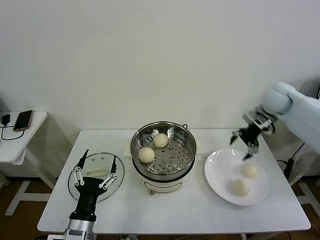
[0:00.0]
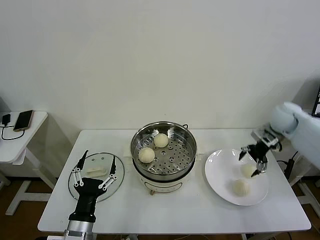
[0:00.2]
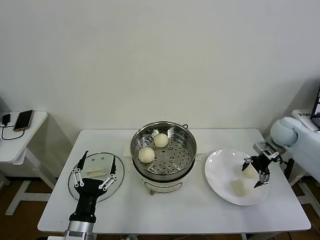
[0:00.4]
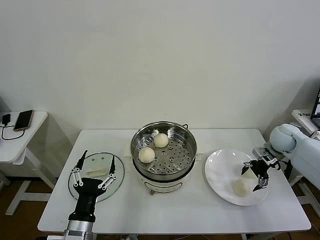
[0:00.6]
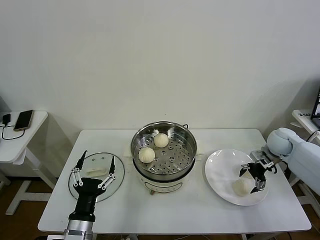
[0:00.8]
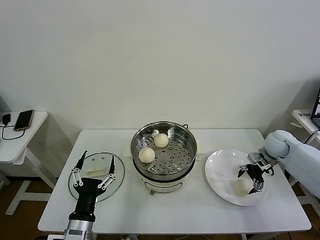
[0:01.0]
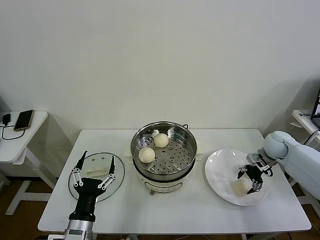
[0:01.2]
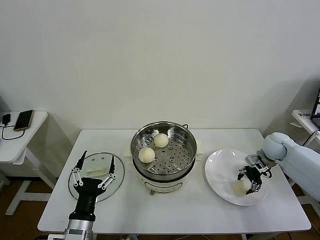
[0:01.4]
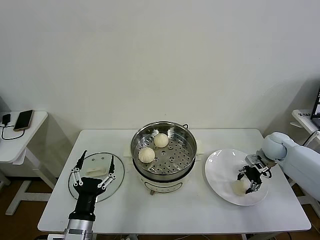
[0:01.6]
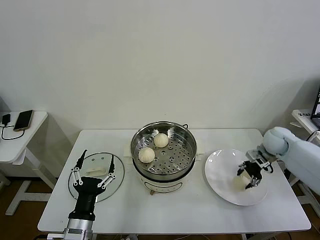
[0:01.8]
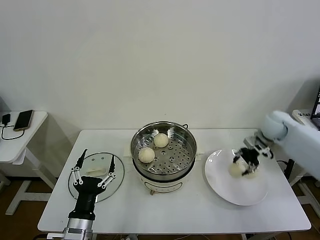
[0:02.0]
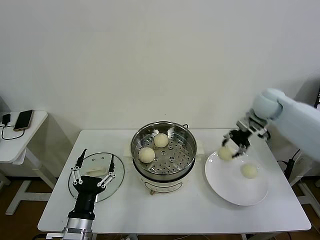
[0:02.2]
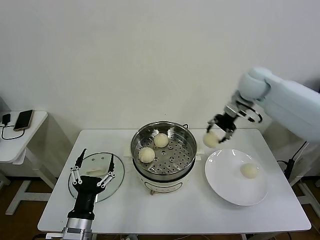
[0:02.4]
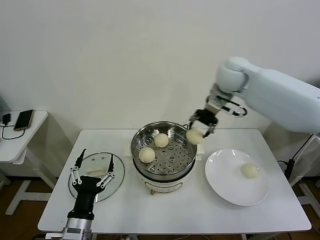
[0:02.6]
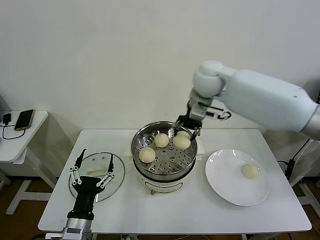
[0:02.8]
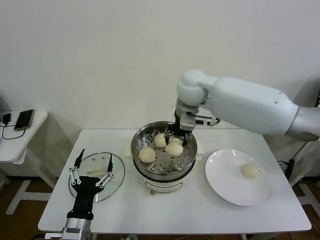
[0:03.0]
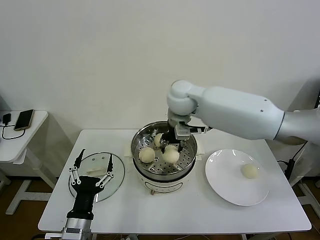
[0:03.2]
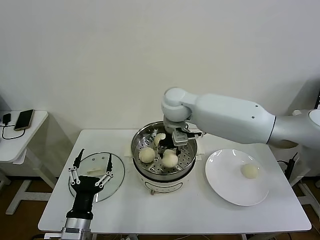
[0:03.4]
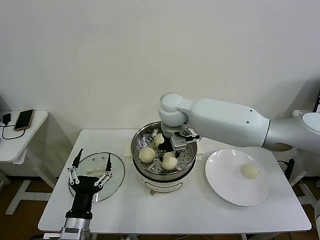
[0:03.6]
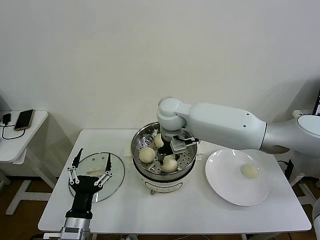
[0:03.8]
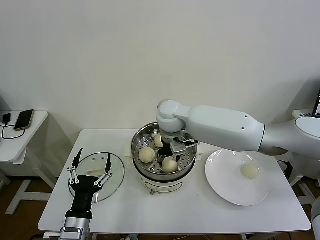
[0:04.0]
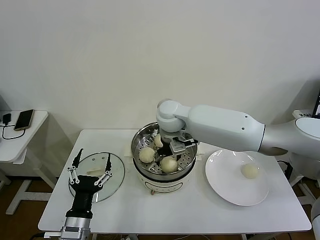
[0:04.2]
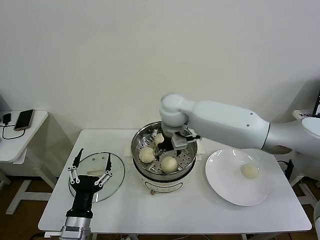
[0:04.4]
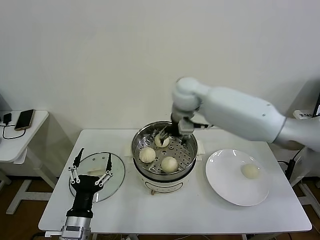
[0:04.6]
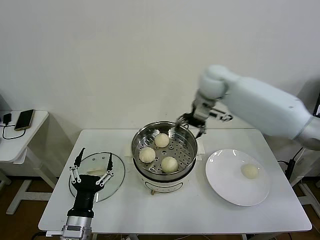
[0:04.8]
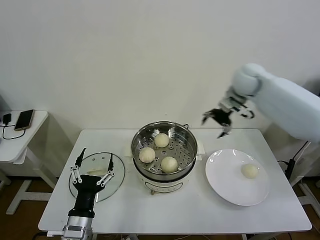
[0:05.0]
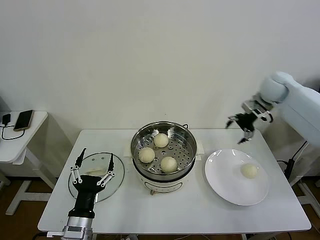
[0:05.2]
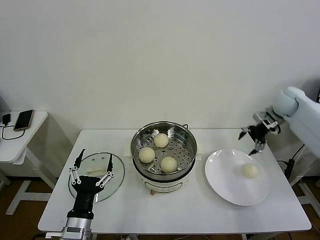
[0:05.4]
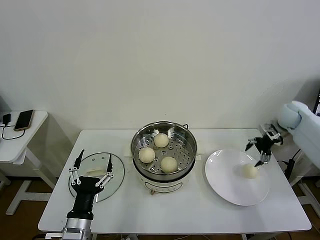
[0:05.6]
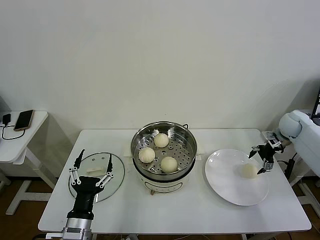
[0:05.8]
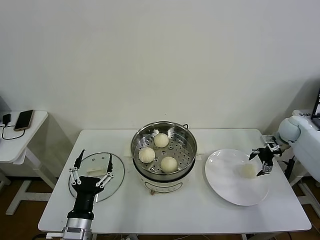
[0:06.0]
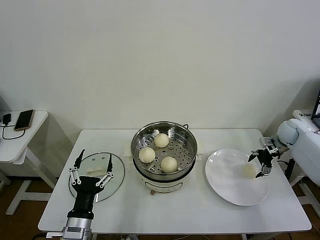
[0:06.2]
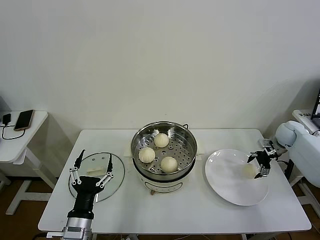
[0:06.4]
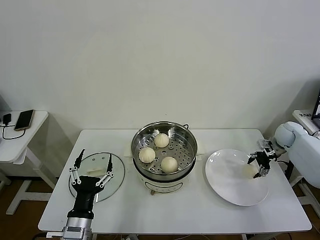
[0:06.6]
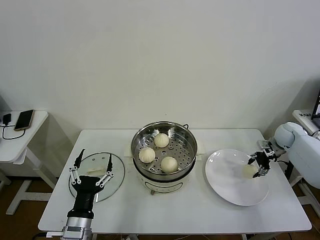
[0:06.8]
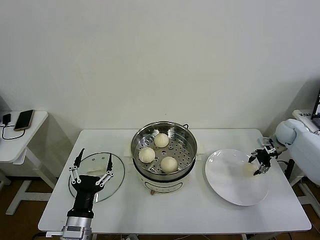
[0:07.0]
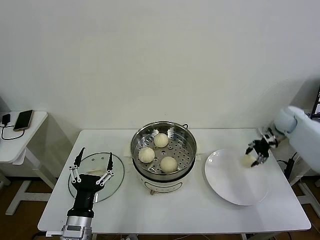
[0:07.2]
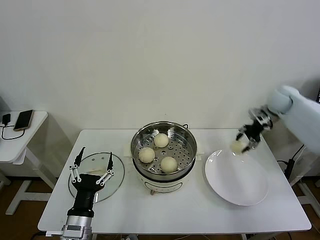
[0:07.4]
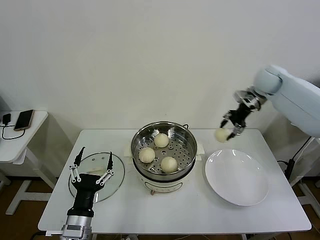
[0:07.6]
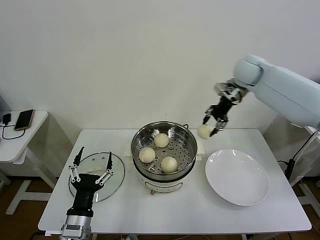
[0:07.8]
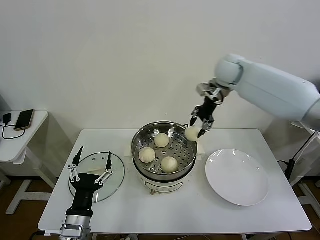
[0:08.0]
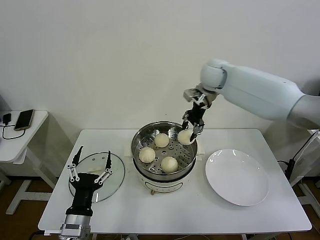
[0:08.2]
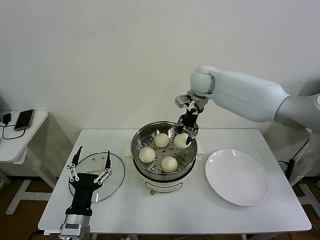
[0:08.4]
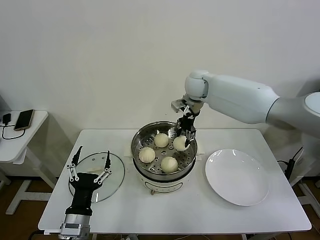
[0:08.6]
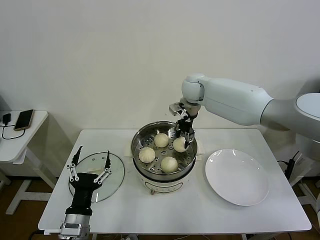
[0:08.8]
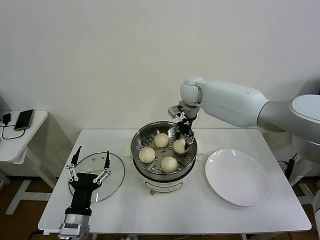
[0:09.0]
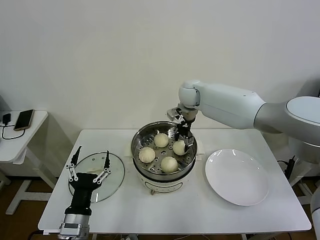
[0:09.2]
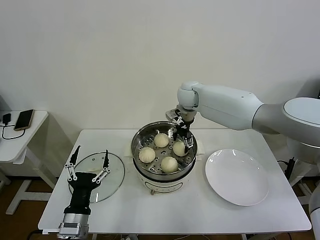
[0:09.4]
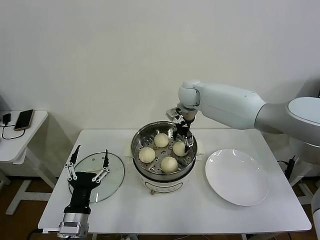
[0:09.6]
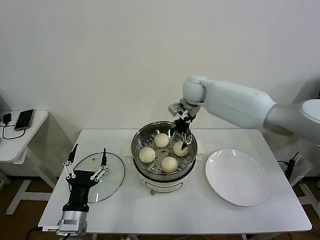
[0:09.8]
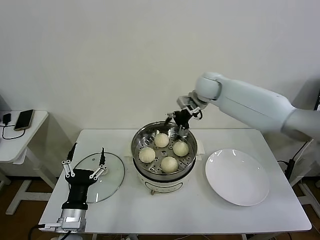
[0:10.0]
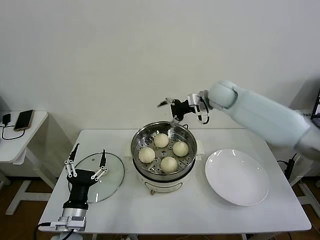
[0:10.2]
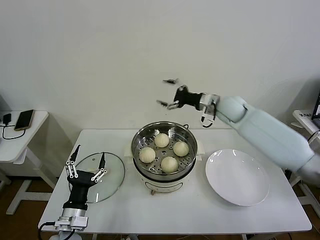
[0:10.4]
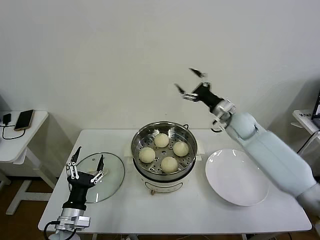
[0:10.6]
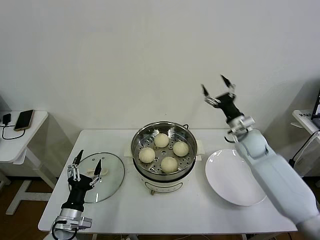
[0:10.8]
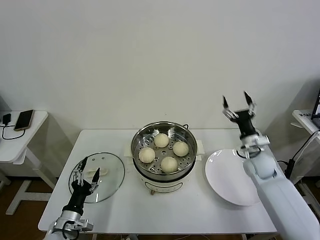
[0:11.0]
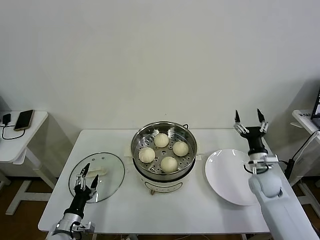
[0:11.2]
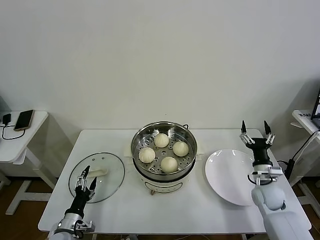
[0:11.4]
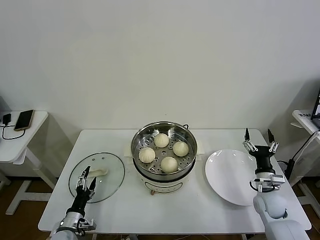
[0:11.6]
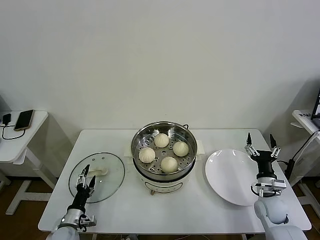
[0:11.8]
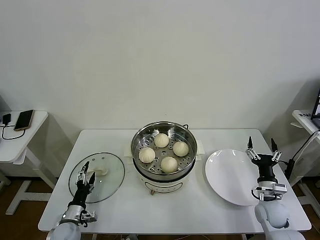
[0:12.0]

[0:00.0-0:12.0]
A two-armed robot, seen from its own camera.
Task of the whole recording: take steamed baozi put them in steamer then cover it.
Step, 0.0 to 1.4 s: Grasp the baozi in the plate with right gripper.
Step, 1.8 to 4.4 s: Place the baozi on the steamer with right gripper.
Step, 4.6 to 6.8 s: Grasp the baozi in the plate with right gripper.
Step, 7.0 to 9.6 s: Place the baozi on the steamer with right gripper.
0.0 to 1.6 s: The right gripper moves downward, approximately 15 cm, and closes up.
1.6 to 3.0 s: The right gripper heads to the left and upward, covering approximately 40 cm.
3.0 to 4.4 s: The right gripper shifts roughly 5 cm downward, and opens up.
4.4 to 6.0 s: The right gripper moves to the right, roughly 50 cm.
6.0 to 7.6 s: The right gripper heads upward and to the left, covering approximately 25 cm, and closes.
7.6 to 9.0 s: The right gripper travels to the left by some 25 cm.
9.0 to 10.4 s: The right gripper goes roughly 15 cm to the right and backward, and opens its fingers.
10.4 to 12.0 s: The left gripper moves downward and to the left, some 15 cm, while the right gripper moves downward, backward and to the right, some 40 cm.

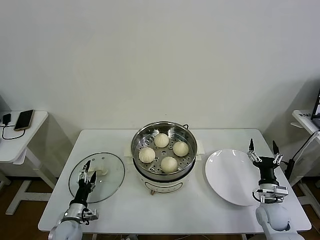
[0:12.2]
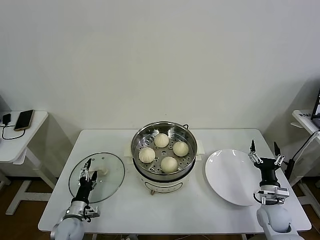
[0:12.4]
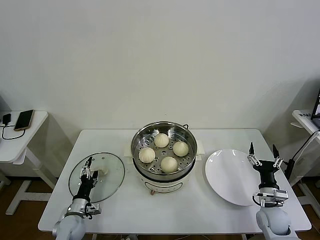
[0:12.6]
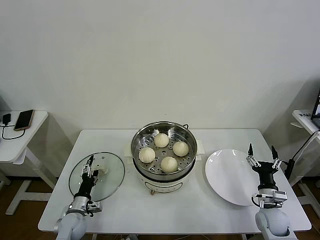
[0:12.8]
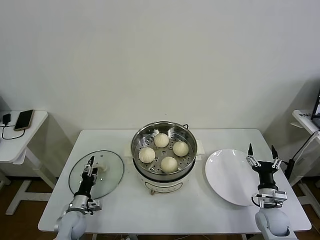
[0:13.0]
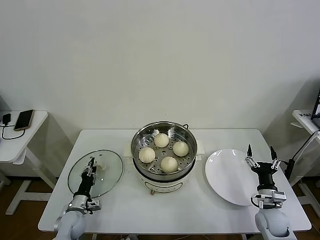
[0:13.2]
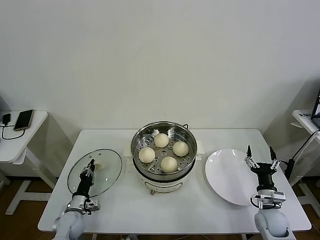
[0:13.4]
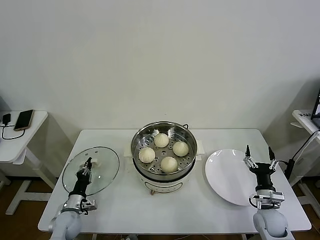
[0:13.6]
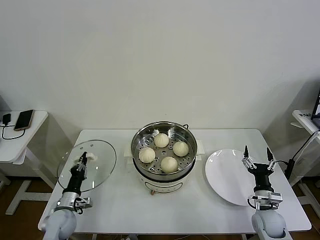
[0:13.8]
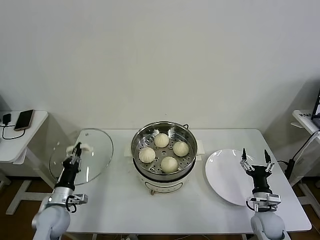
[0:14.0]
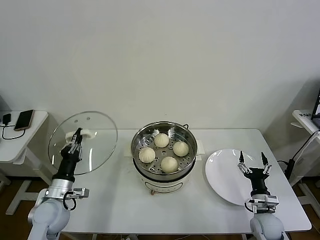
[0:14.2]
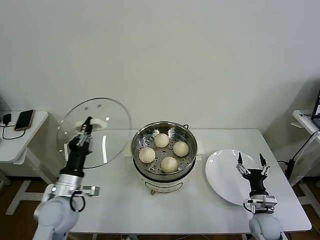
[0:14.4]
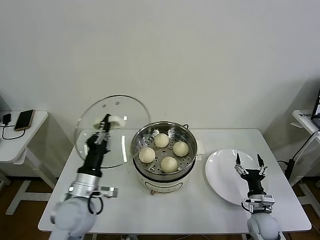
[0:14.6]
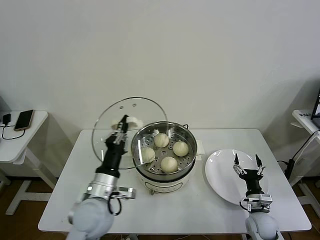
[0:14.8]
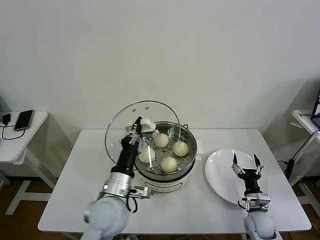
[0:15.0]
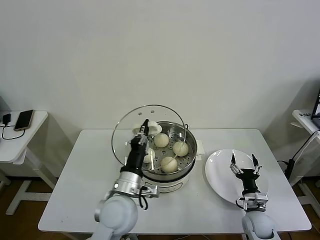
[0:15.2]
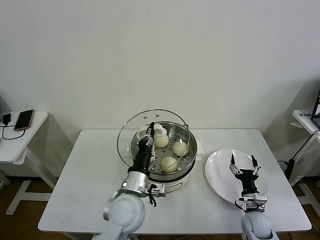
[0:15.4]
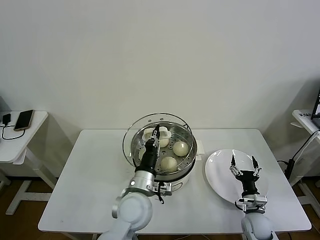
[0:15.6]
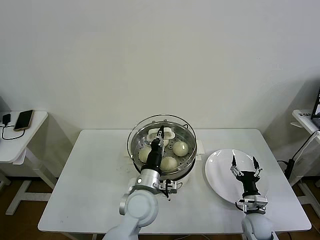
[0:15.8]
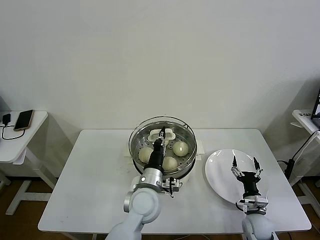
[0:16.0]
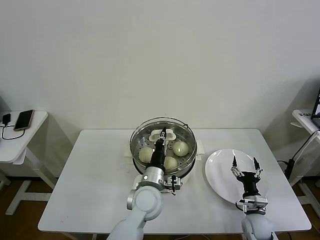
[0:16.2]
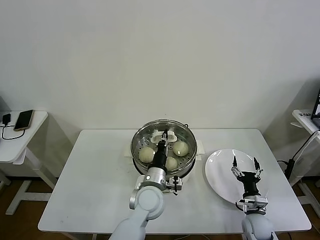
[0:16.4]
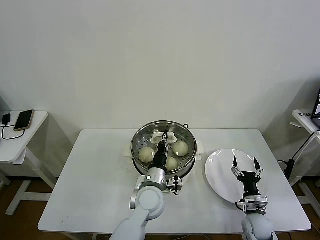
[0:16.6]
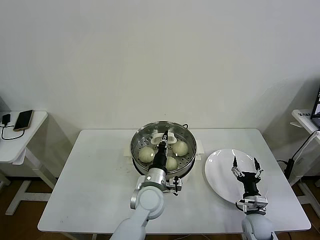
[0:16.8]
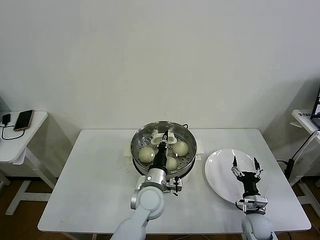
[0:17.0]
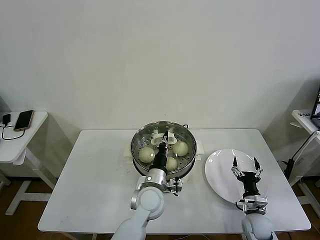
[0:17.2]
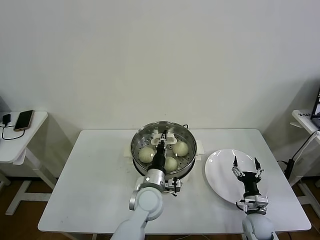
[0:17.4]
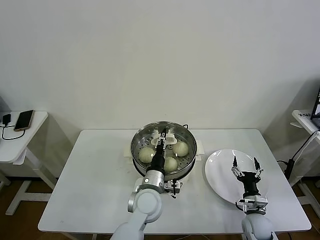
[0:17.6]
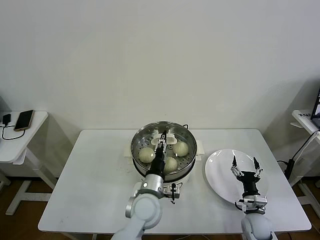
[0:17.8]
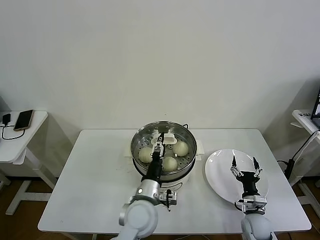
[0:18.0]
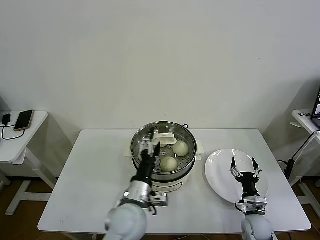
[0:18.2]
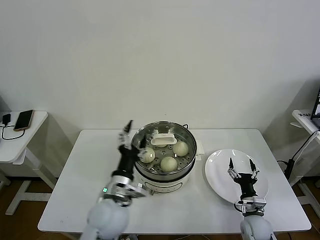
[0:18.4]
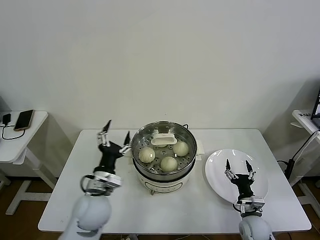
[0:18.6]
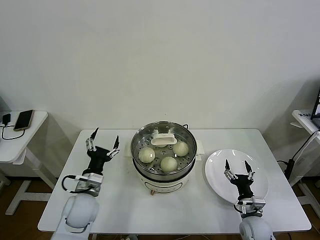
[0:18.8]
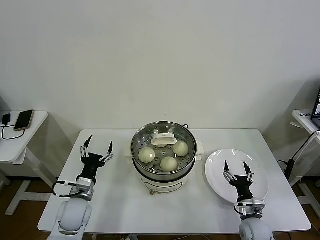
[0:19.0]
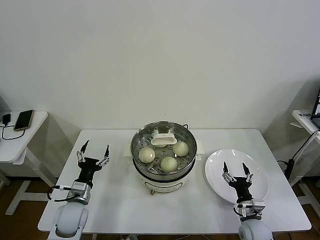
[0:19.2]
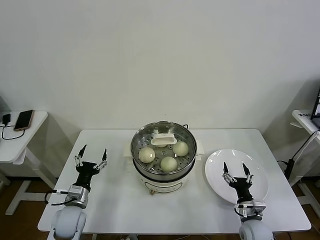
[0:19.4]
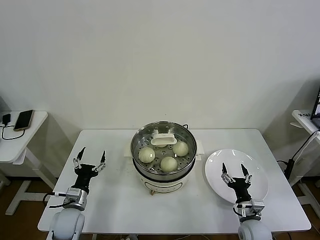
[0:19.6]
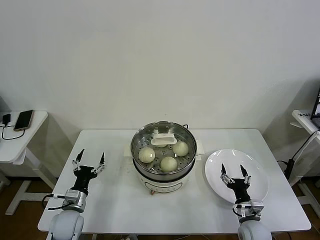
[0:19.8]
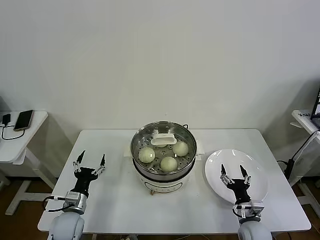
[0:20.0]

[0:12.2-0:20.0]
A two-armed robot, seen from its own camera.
Task of the whole recording: take steamed baozi put them in steamer then cover it.
Step, 13.8 to 17.8 s: Place the pot lid on the steamer with left gripper.
12.2 to 13.8 s: The left gripper closes its fingers.
13.8 to 15.4 s: The left gripper is displaced to the right and upward by about 30 cm.
15.4 to 16.8 s: The left gripper goes about 10 cm downward, to the right and forward.
16.8 to 18.4 s: The left gripper goes some 10 cm to the left, backward and upward, and opens.
18.4 to 20.0 s: The left gripper shifts roughly 25 cm to the left and downward.

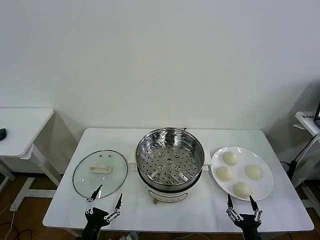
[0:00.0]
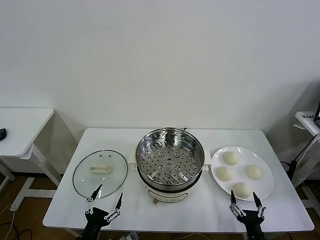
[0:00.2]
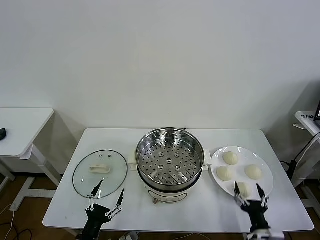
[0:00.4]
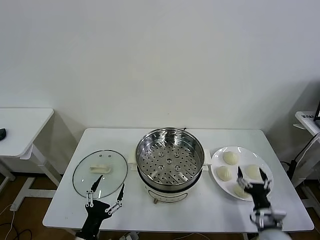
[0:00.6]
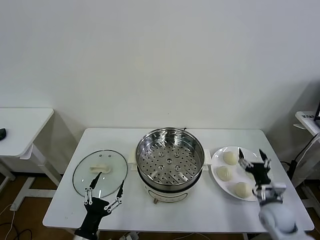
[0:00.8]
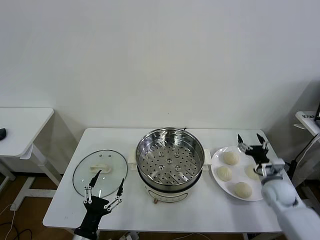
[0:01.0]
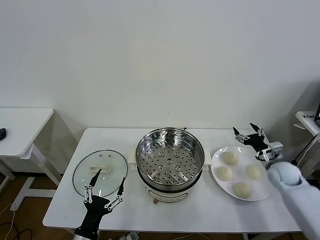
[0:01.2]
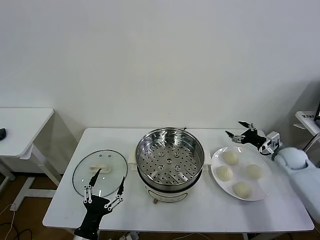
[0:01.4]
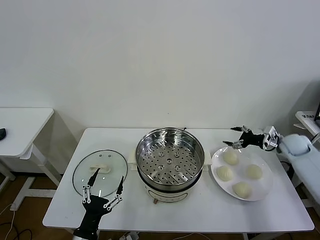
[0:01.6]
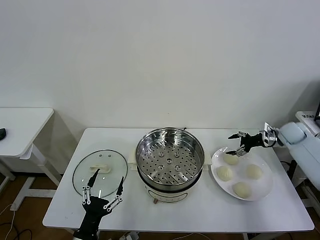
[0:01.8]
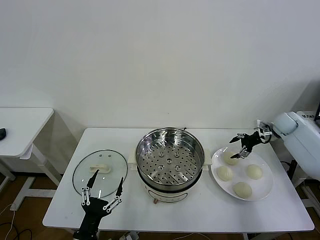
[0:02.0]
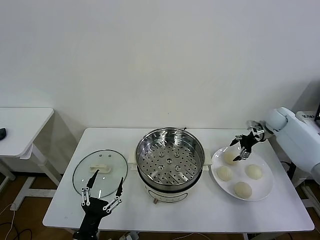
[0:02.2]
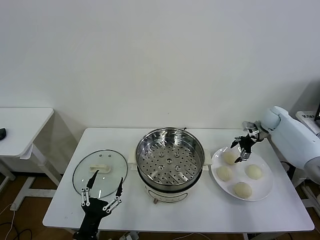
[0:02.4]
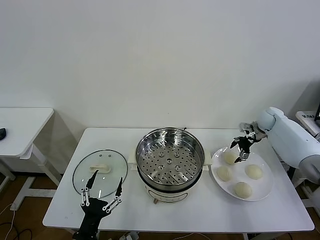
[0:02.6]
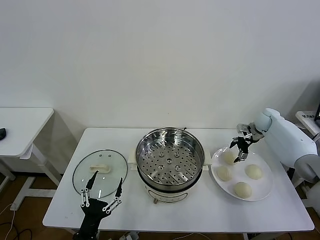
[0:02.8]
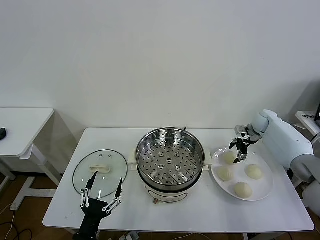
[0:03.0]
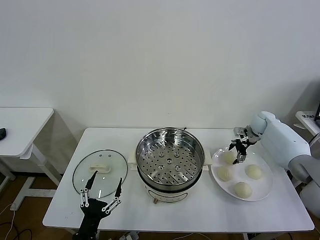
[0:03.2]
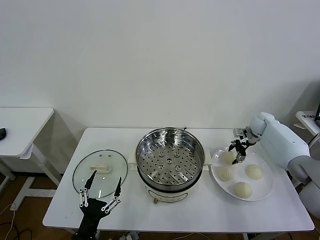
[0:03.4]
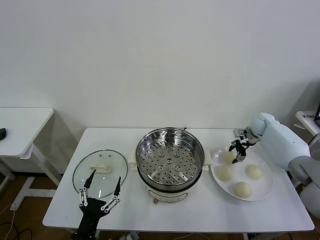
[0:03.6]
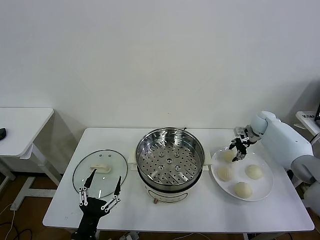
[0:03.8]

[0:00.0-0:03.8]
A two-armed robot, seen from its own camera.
Task of the whole recording: take steamed baozi put them in steamer then cover it.
Step, 0.0 to 3.6 s: Grasp the baozi in the plate with right gripper.
1.2 to 2.6 s: The right gripper heads forward and upward, covering some 20 cm.
2.6 to 3.8 s: The right gripper closes.
